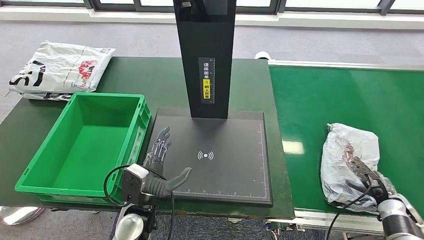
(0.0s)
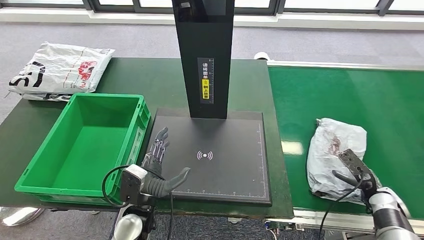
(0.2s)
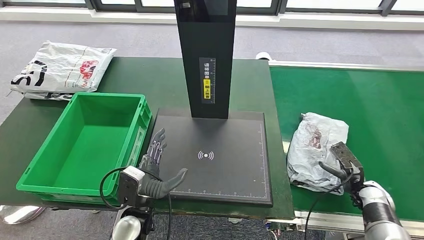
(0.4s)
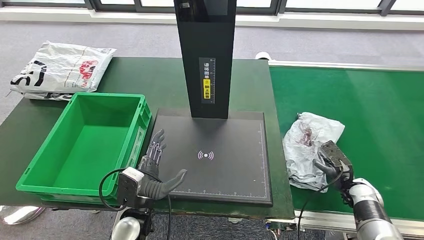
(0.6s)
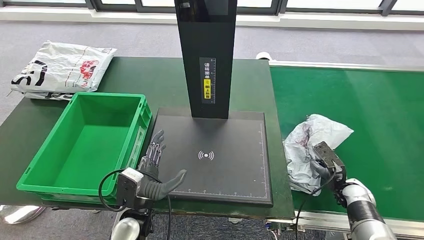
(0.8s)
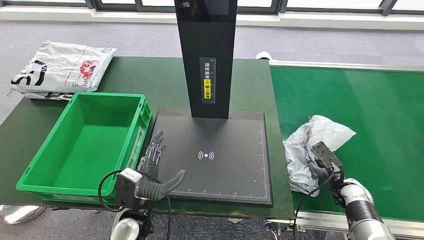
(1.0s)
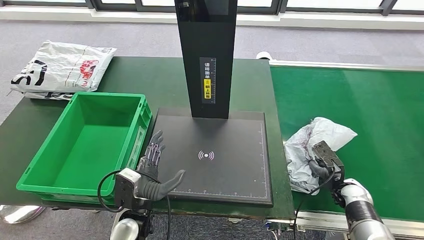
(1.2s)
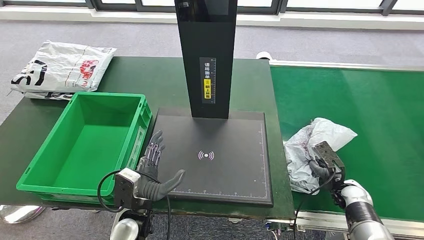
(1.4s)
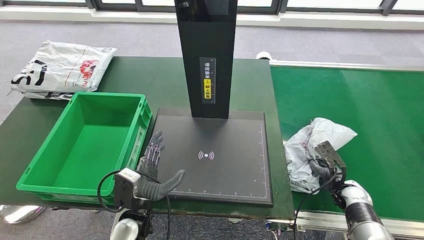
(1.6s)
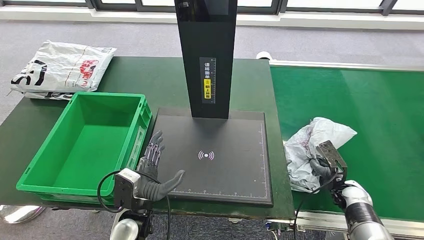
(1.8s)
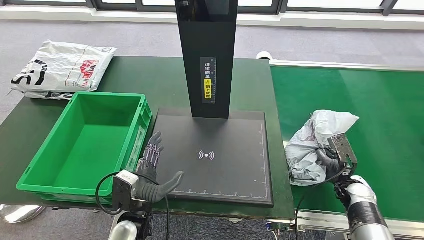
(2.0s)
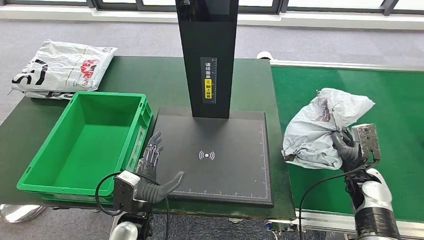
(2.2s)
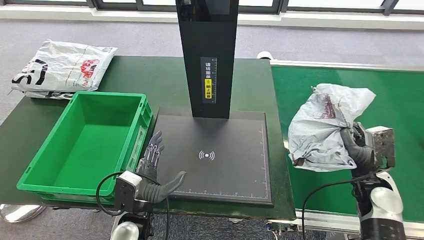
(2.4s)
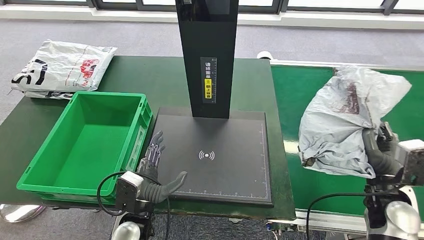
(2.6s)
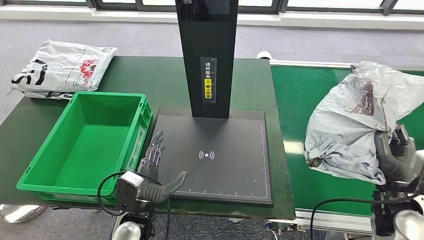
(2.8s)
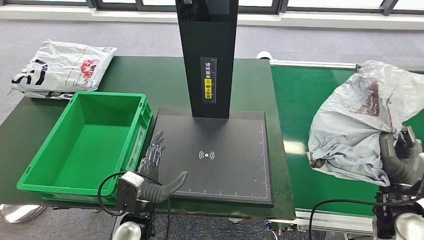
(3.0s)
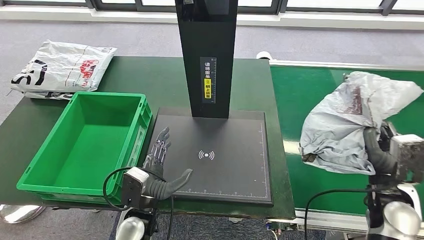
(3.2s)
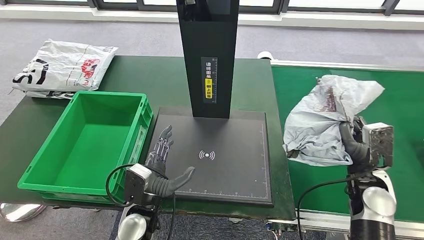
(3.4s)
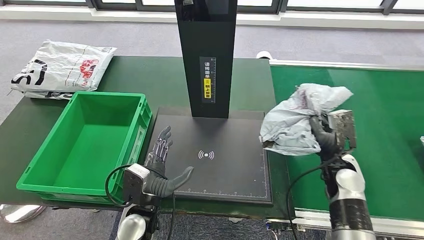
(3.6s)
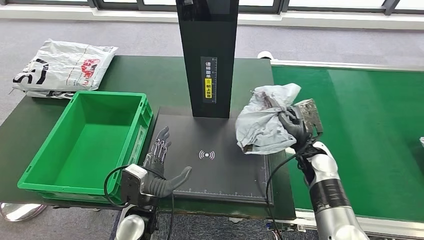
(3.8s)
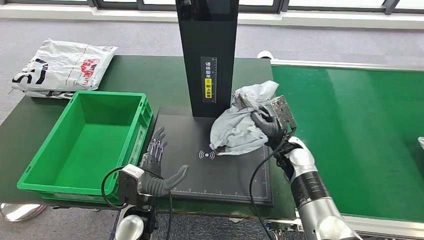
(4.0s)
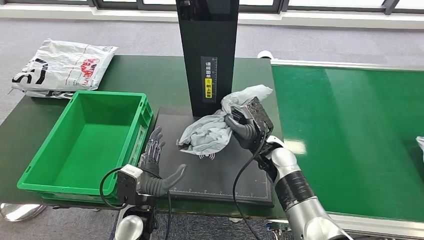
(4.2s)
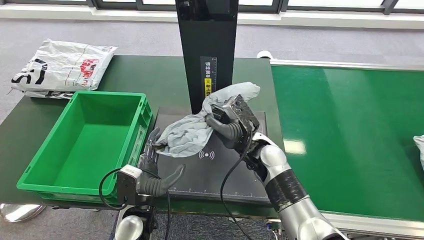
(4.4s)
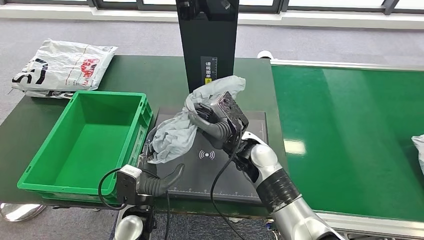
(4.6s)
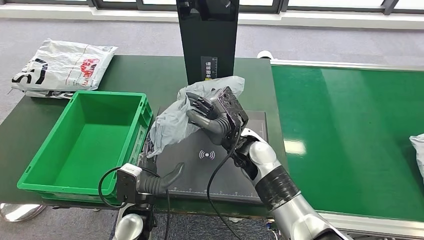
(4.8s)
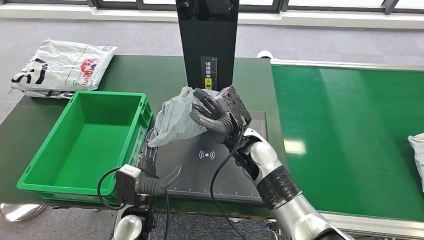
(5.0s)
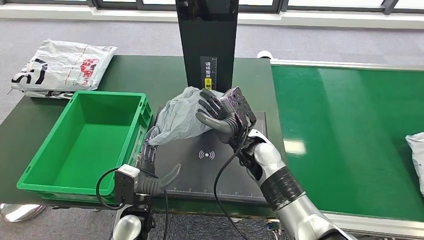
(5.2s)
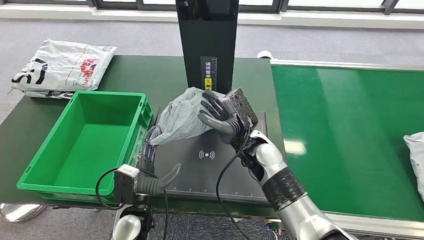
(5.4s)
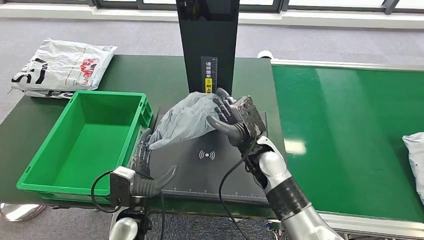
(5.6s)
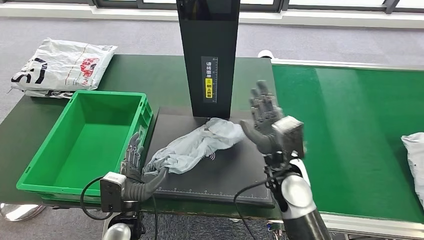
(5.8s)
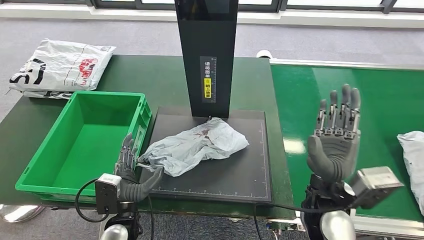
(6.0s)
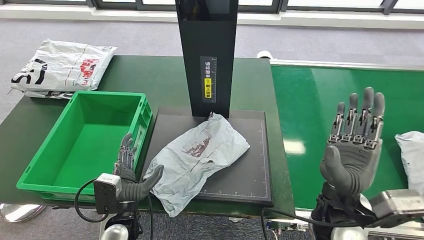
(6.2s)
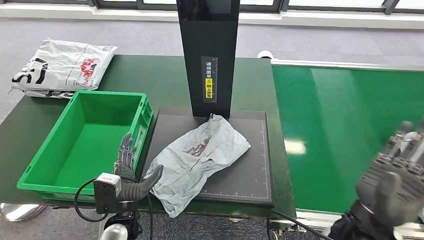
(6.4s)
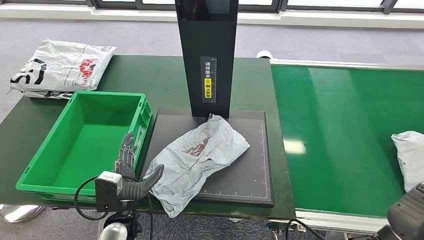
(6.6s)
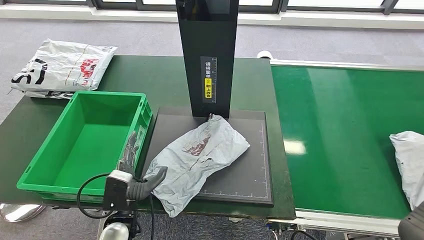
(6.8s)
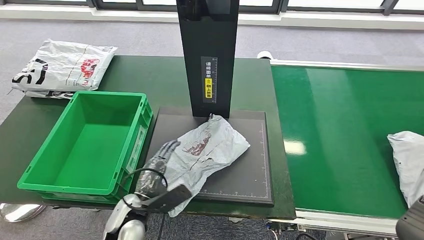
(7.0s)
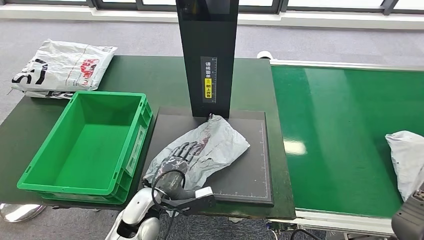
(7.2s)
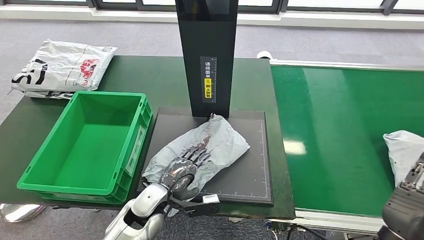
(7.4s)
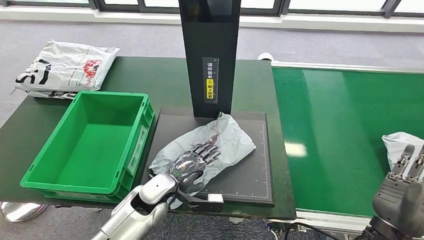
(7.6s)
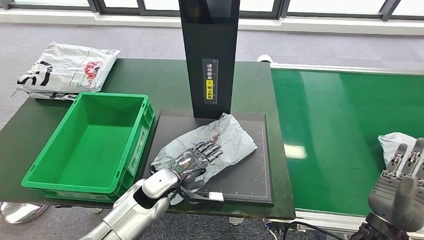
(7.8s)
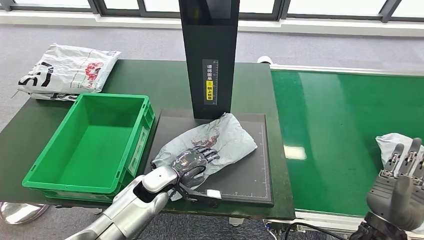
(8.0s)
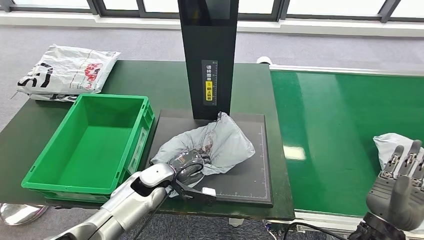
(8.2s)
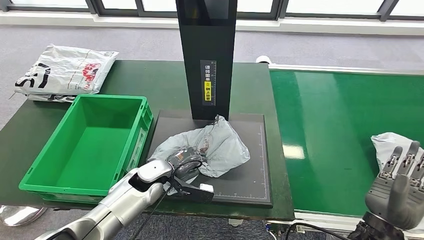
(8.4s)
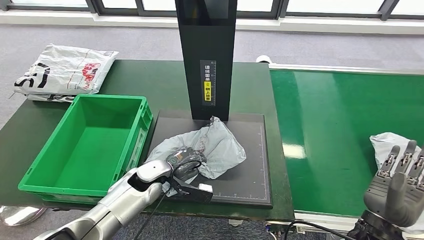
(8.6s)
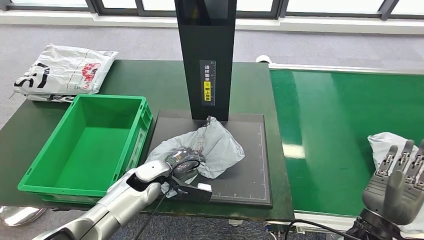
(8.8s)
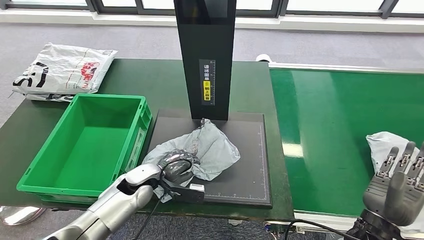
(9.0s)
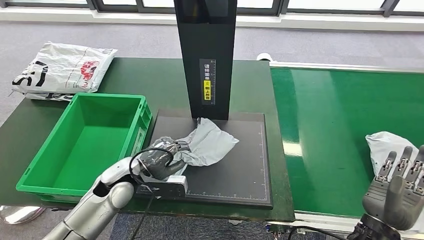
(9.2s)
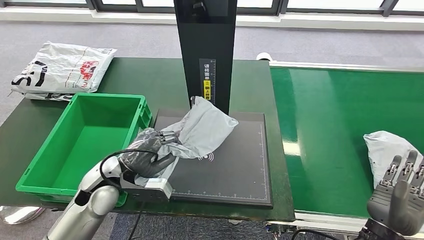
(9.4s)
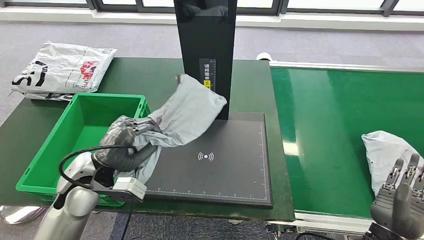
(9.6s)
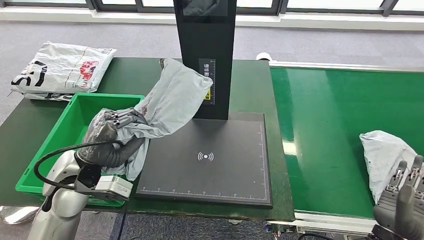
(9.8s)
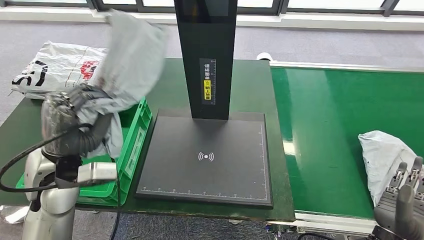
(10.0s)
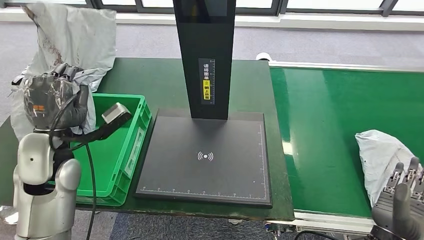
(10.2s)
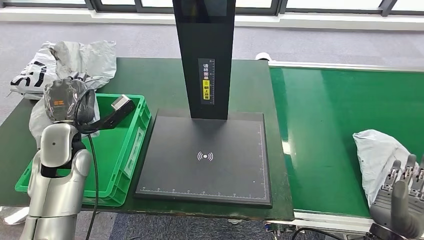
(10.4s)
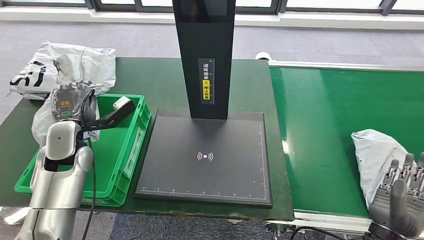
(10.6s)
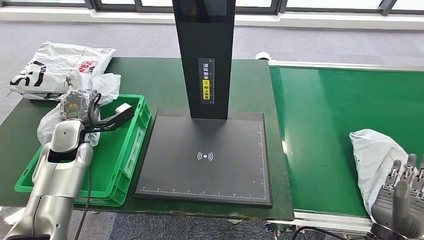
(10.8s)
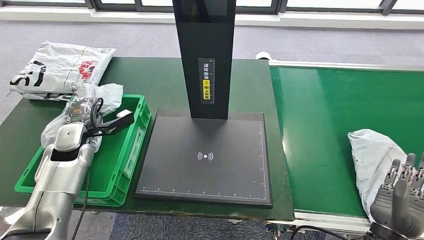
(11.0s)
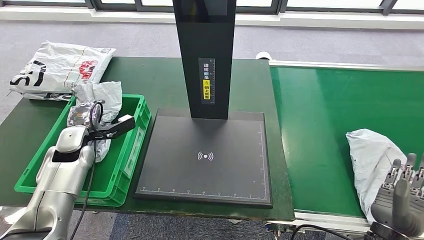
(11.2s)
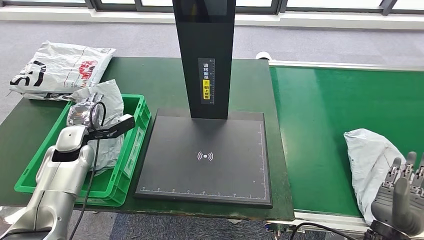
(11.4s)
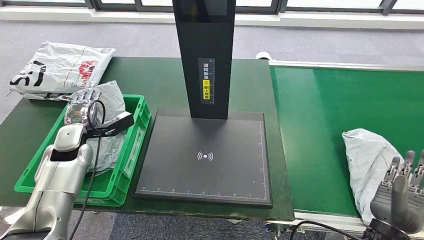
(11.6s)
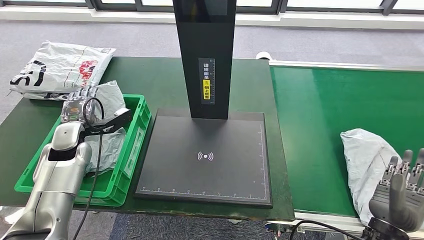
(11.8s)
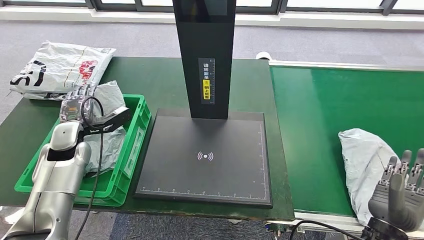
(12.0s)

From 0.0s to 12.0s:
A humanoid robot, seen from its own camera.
Step, from 0.0s to 3.0s: Take the parcel off the conveyor belt.
Step, from 3.2s to 7.4s: Place the parcel onto the inbound machine.
Step, from 7.6s to 10.0s: Pick up the parcel from the inbound machine.
From 0.0s to 1.6s: The right hand moves to the left, some 10 cm.
From 1.6s to 3.0s: The right hand shifts about 15 cm upward and backward.

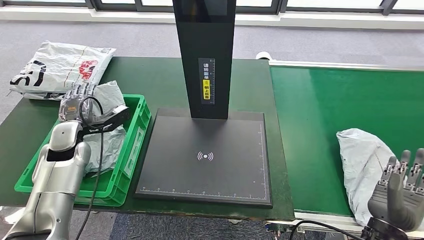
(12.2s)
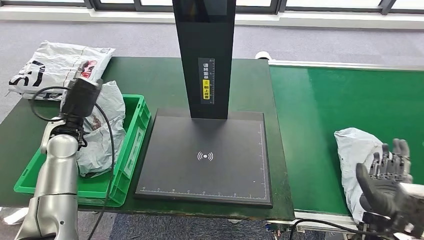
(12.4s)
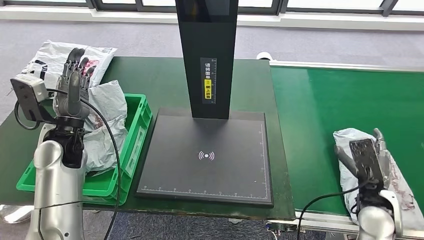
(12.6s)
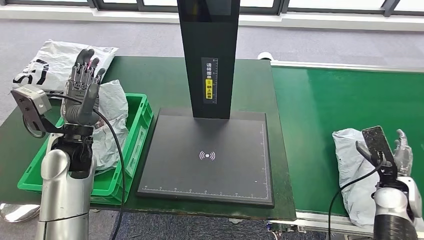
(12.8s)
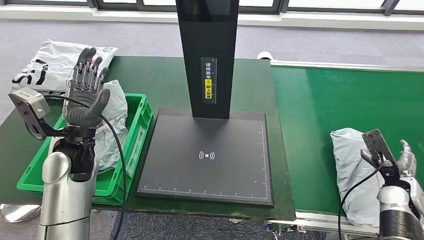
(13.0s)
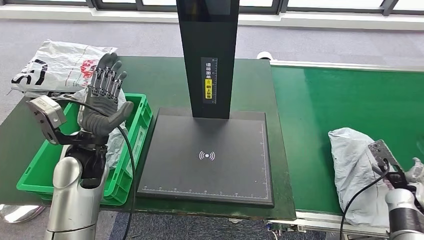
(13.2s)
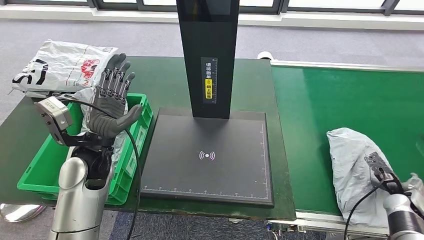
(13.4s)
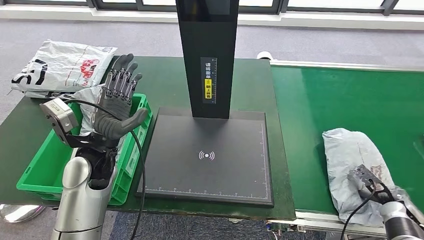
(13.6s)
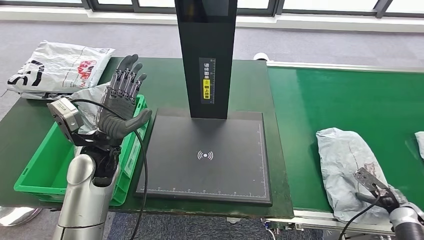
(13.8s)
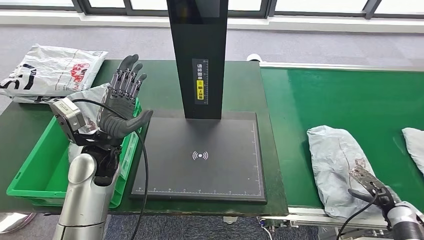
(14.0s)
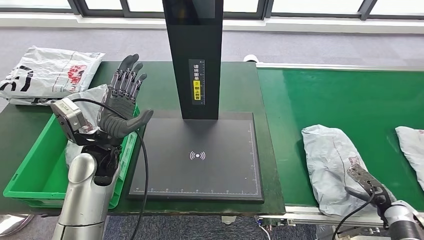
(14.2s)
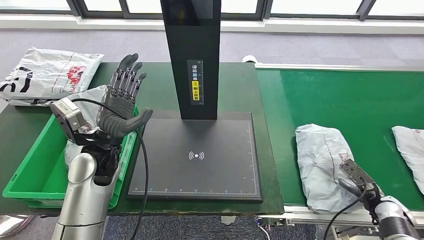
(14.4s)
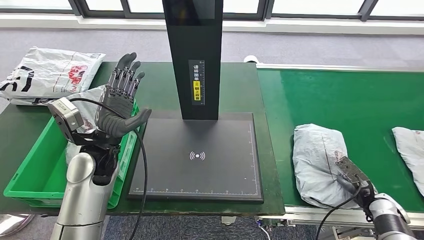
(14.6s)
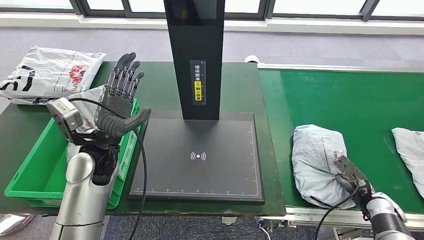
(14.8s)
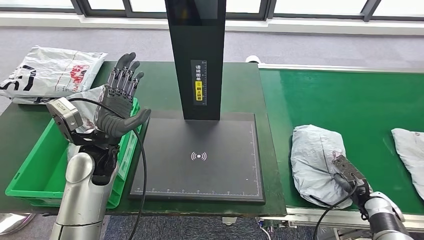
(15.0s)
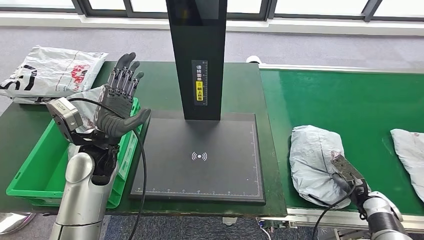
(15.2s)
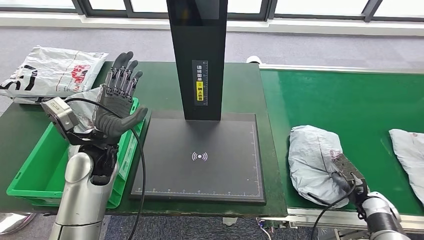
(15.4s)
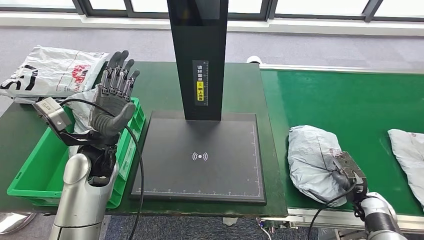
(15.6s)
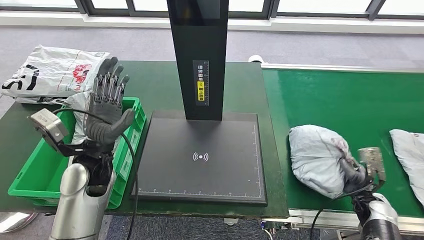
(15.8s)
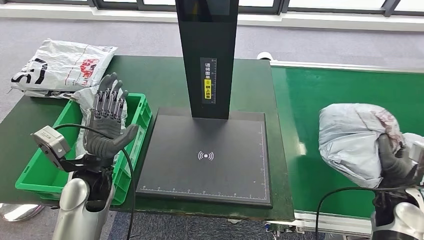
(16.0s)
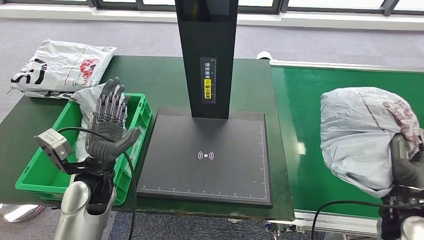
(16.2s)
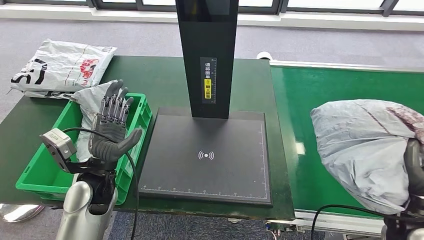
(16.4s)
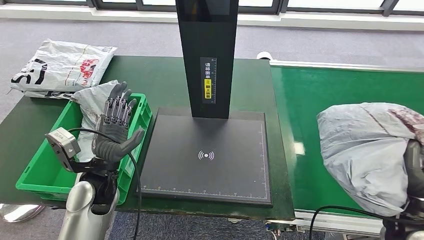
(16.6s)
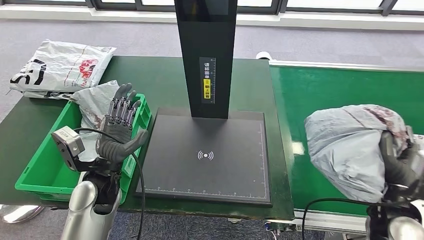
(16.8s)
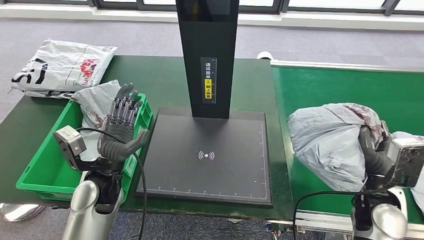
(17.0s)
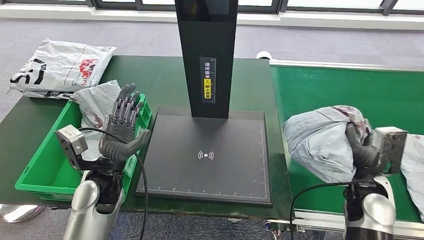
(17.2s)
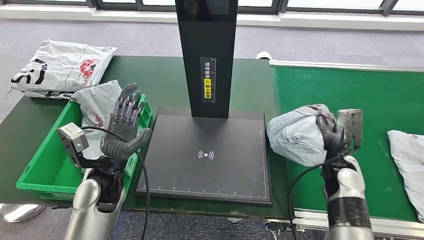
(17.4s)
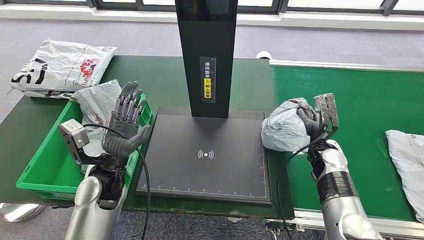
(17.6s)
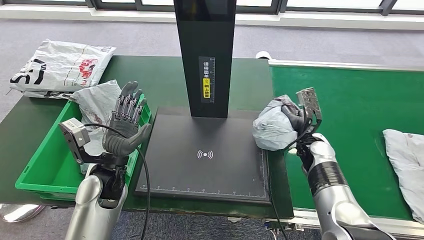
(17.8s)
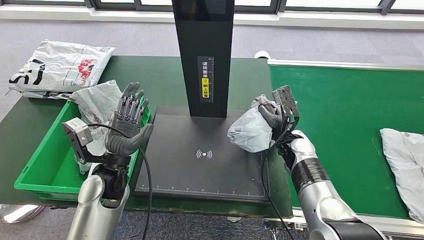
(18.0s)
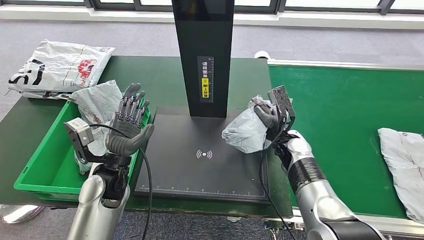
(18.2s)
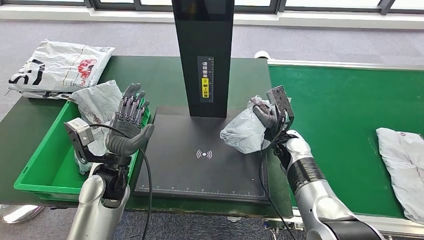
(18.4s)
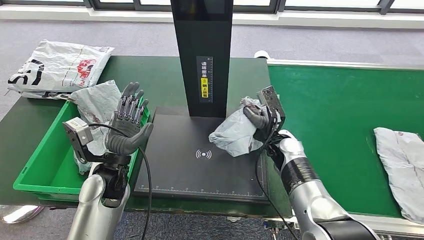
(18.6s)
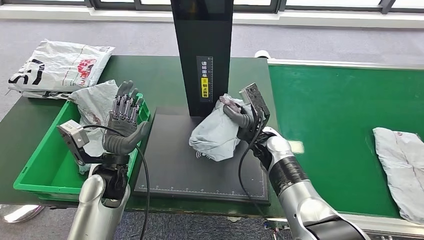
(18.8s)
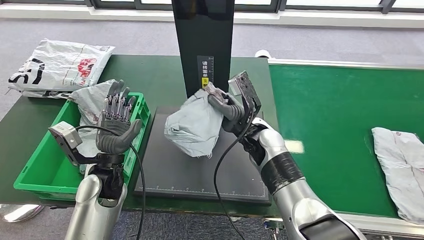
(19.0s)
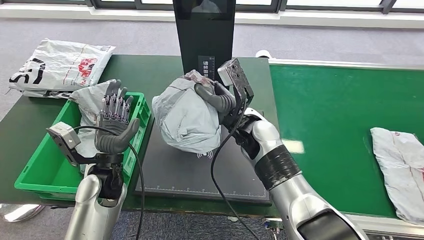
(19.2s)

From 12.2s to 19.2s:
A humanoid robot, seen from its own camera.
Step, from 12.6s to 17.0s: Pick up the parcel from the conveyor belt.
